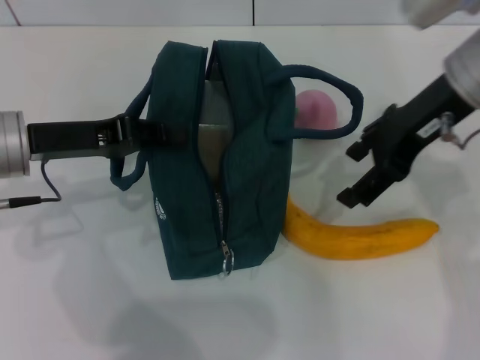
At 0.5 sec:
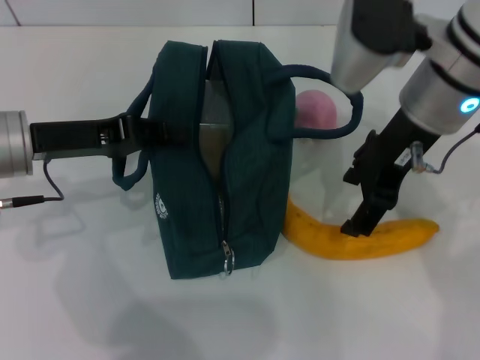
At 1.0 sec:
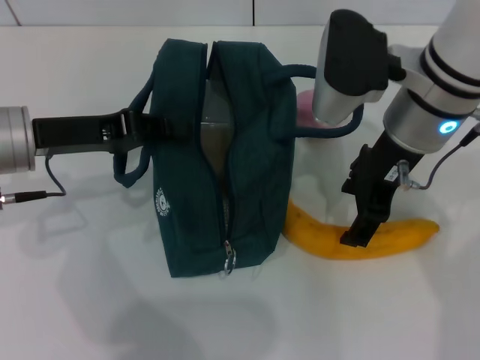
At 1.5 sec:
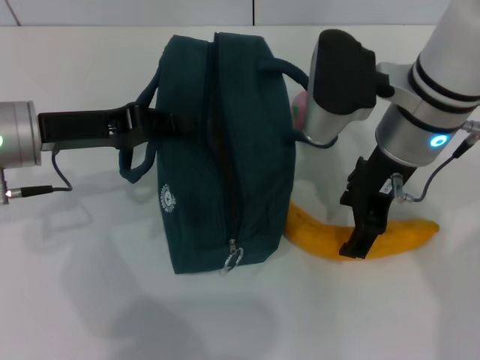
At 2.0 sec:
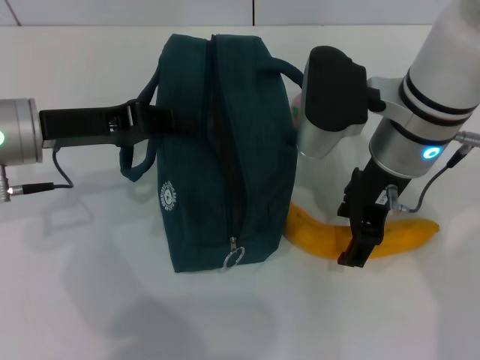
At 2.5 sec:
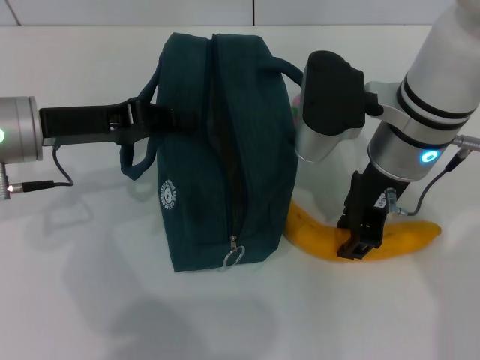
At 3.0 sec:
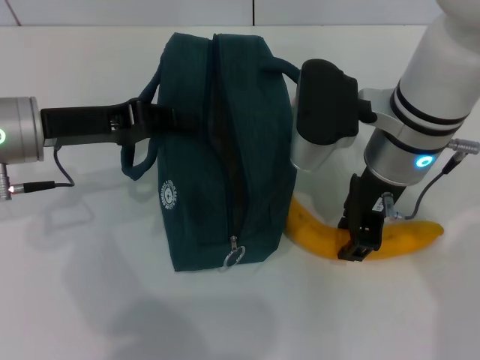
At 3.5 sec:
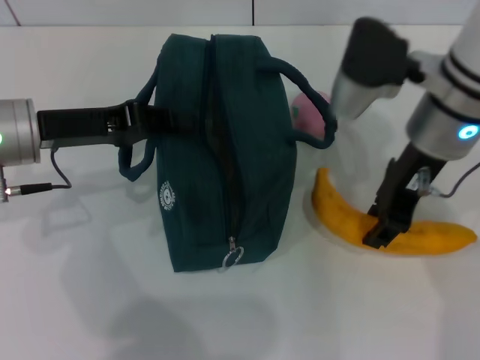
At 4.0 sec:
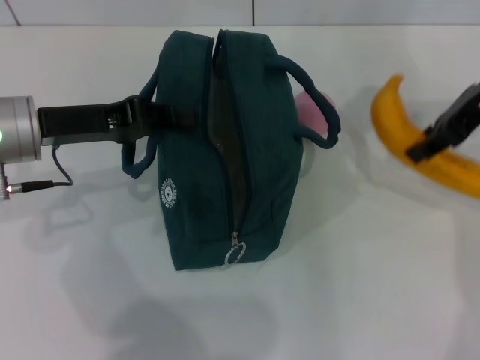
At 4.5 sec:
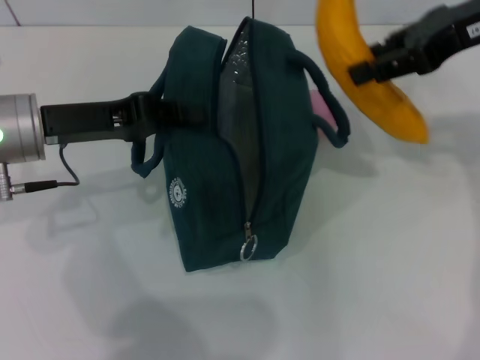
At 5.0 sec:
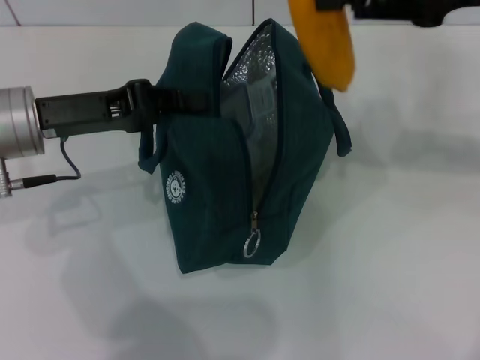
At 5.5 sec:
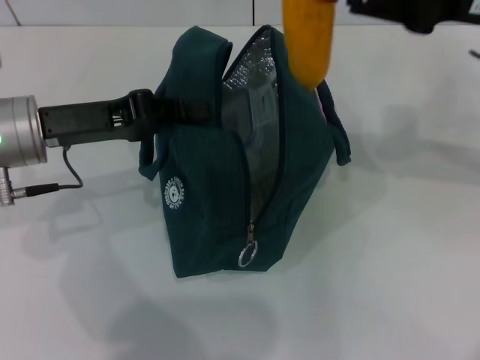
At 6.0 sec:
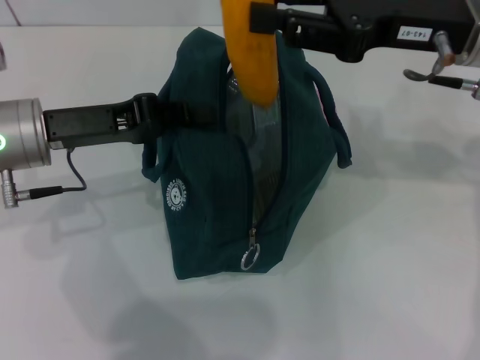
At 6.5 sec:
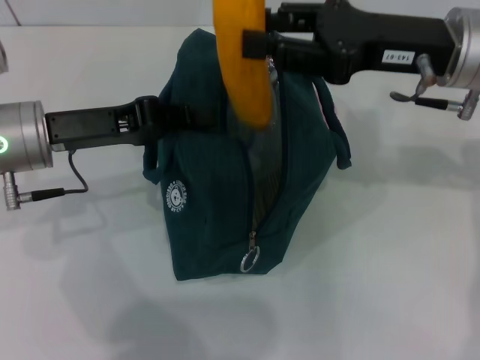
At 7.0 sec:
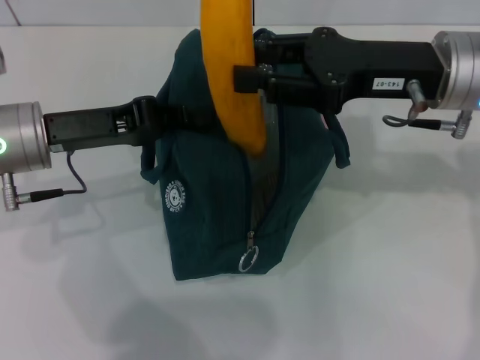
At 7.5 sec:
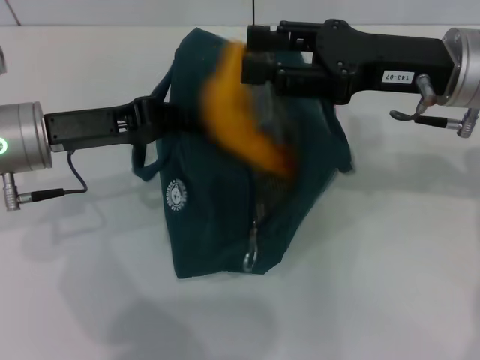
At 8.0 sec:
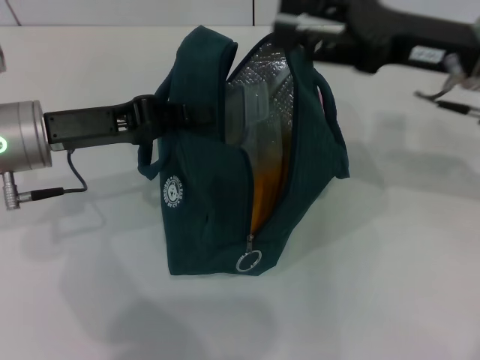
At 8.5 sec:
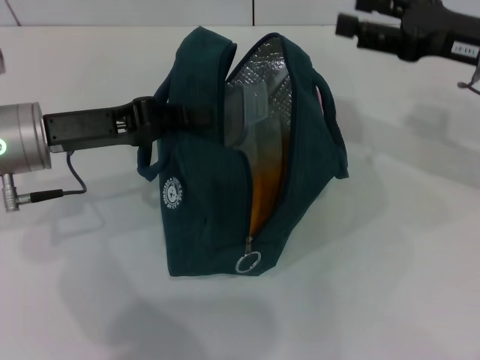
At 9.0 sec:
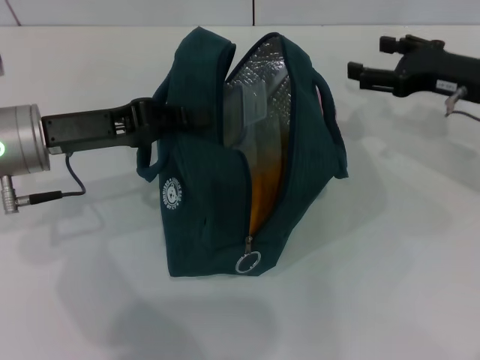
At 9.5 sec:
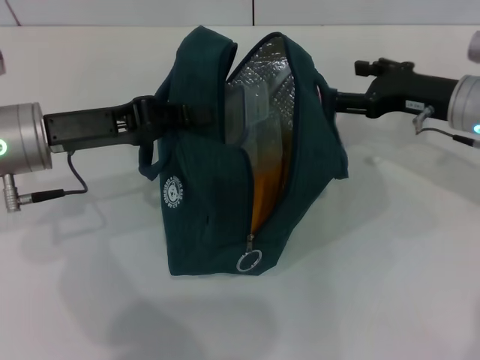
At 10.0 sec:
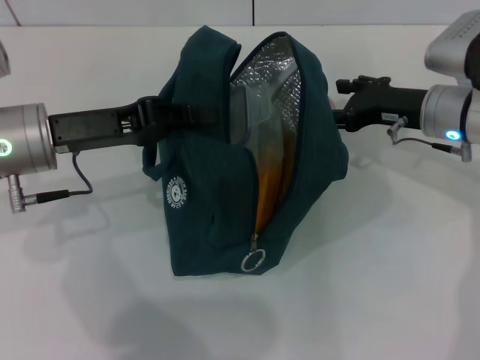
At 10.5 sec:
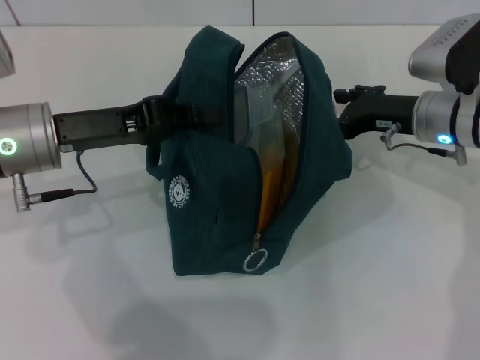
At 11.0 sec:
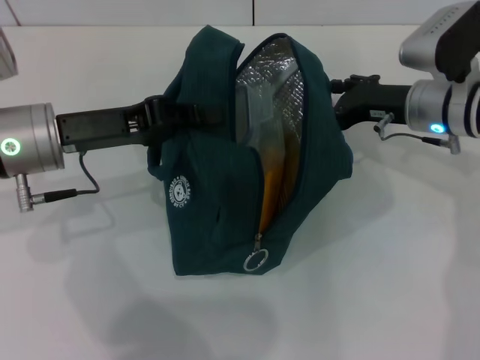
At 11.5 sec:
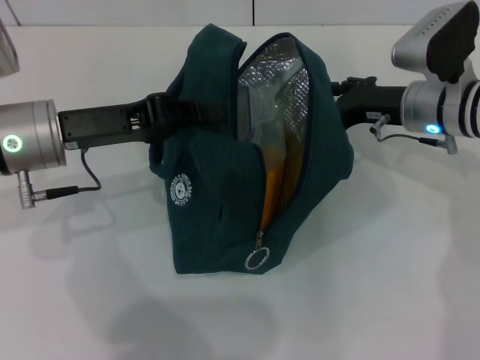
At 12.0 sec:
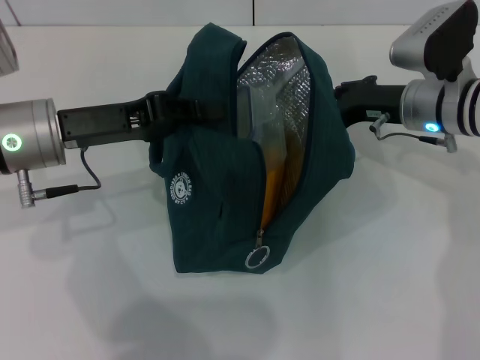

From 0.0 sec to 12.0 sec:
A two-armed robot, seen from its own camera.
Step, from 0.0 sec to 2.5 sec: Take the banana with your right hand.
Step, from 3.0 sec to 7.5 sec: Put the banana into the lunch bag with your right hand.
Step, from 8.0 sec to 12.0 sec: Grab the peach with your right hand.
From 0.0 sec to 2.0 sec: The right gripper shifts roughly 10 cm to the left and downward.
From 2.0 sec to 4.0 sec: The right gripper shifts roughly 15 cm to the right and upward, and closes.
From 4.0 sec to 6.0 sec: The right gripper changes place by about 5 cm.
From 6.0 sec to 8.0 sec: The grippers make only small movements.
From 8.0 sec to 10.0 sec: The right gripper heads downward, covering some 10 cm.
From 10.0 sec to 12.0 sec: The grippers move only a little.

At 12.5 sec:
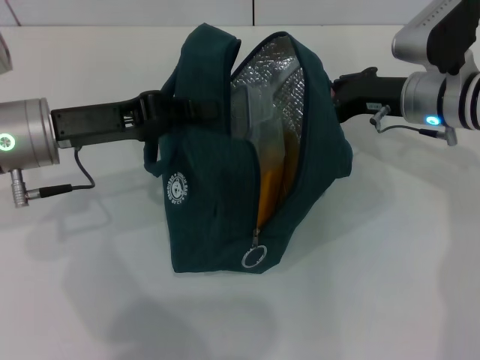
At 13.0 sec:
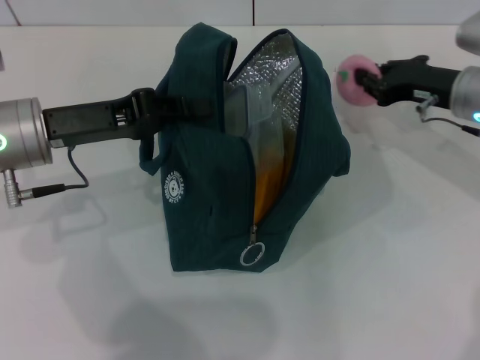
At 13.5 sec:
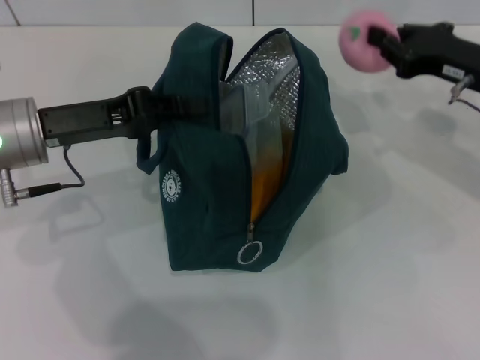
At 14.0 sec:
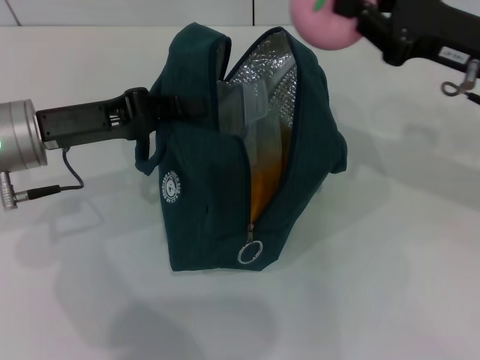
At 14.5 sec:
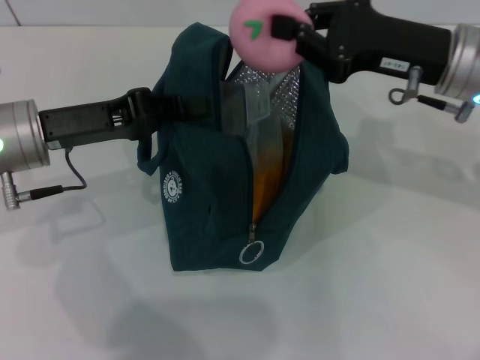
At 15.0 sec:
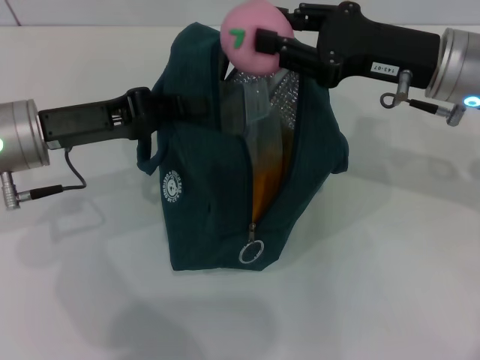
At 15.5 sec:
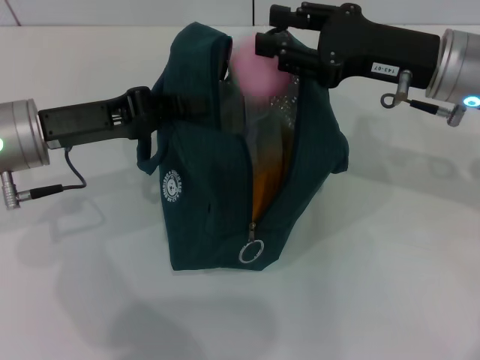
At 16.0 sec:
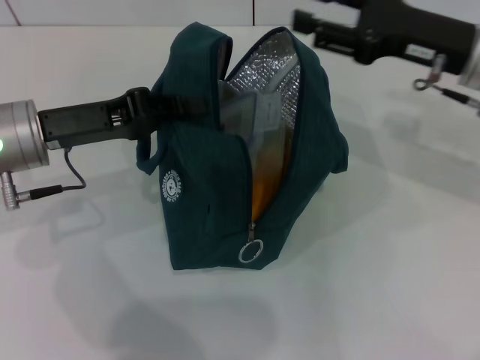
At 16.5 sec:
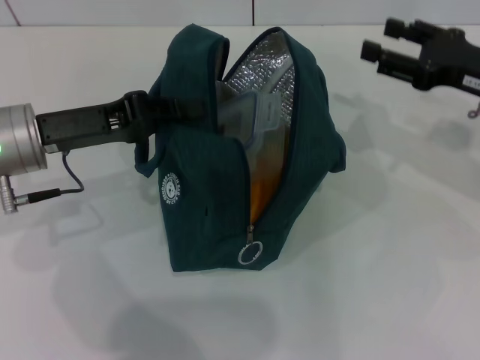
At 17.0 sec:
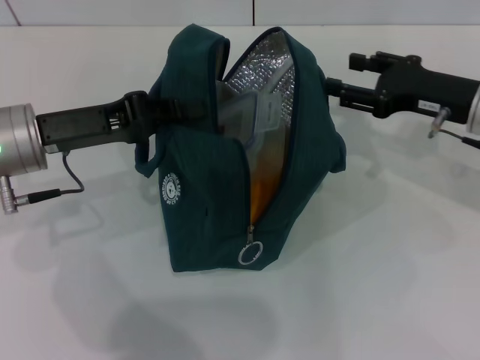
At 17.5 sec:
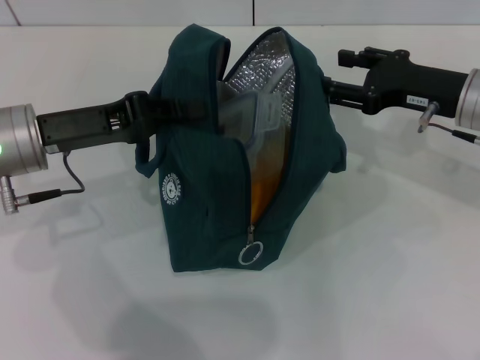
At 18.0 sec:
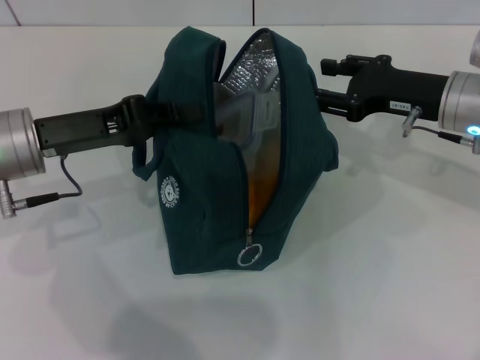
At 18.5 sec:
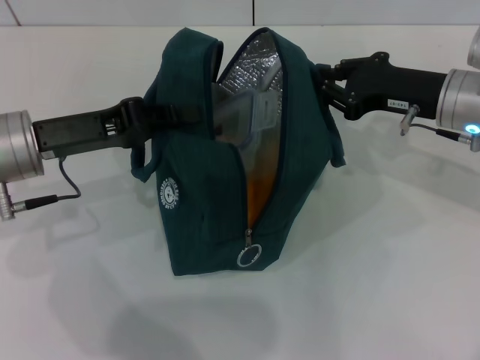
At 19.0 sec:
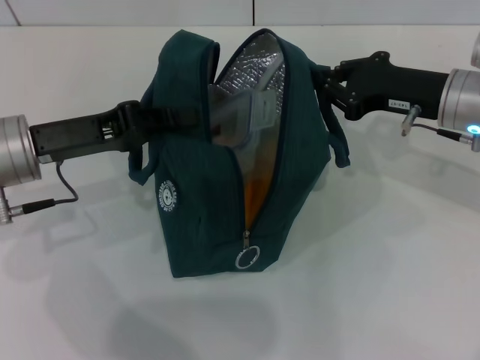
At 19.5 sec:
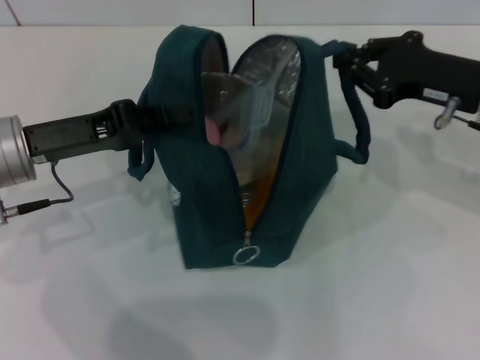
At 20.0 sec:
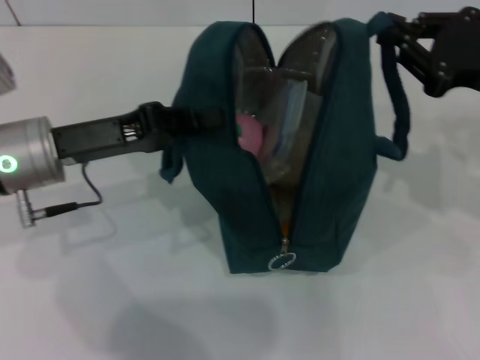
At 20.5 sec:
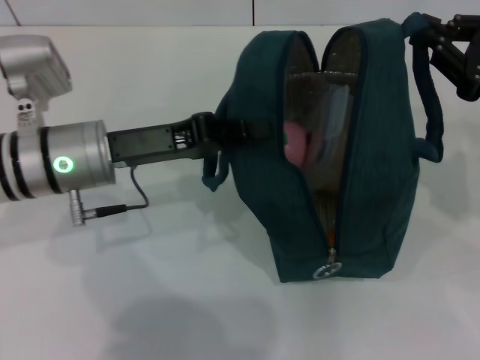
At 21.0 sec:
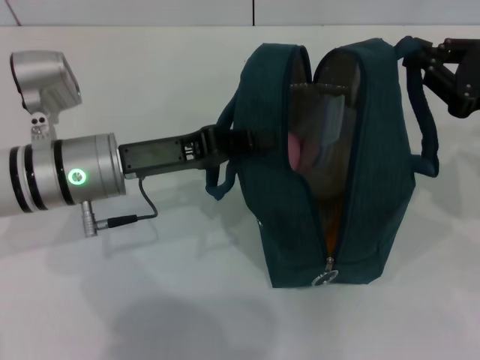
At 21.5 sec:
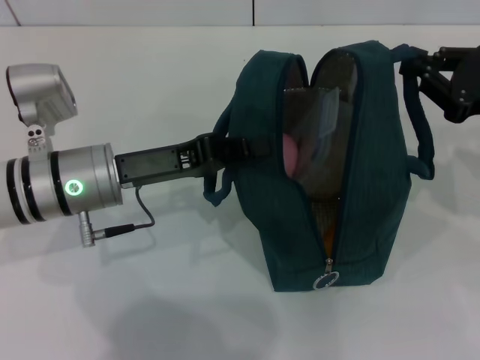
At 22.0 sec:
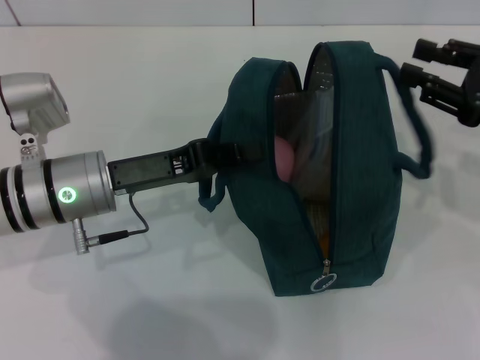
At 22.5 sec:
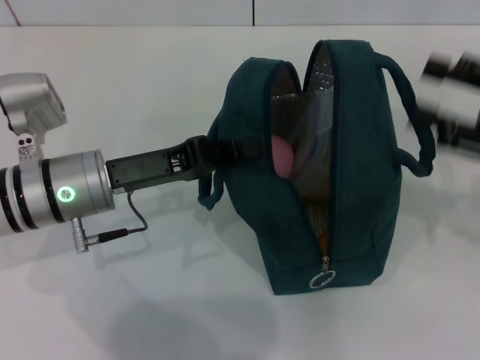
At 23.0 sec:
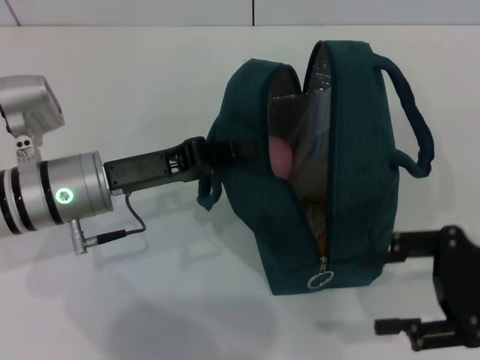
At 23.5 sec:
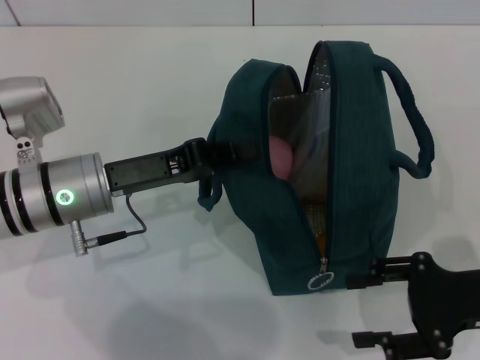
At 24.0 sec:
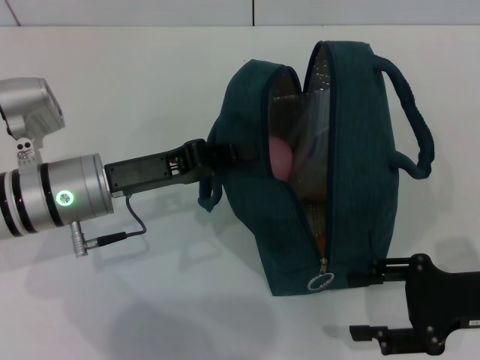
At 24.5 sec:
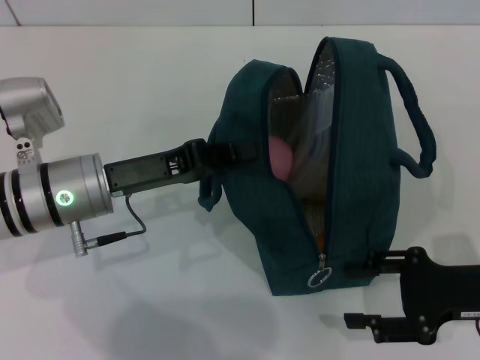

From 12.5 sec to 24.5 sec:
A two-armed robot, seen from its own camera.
Step, from 16.0 sec to 21.5 sec: Hold the lunch bag with your right hand.
From 12.5 sec to 14.5 sec: The right gripper goes approximately 10 cm upward and backward.
From 14.5 sec to 16.5 sec: The right gripper shifts some 10 cm to the right, and opens.
From 16.5 sec to 18.5 sec: The right gripper shifts some 5 cm to the left.
From 18.5 sec to 20.5 sec: The left gripper shifts about 5 cm to the right; the right gripper shifts approximately 10 cm to the right and backward.
From 20.5 sec to 22.5 sec: The right gripper opens its fingers.
From 22.5 sec to 24.5 sec: The right gripper shifts some 10 cm downward.

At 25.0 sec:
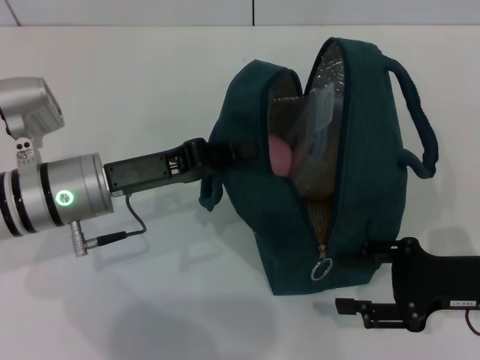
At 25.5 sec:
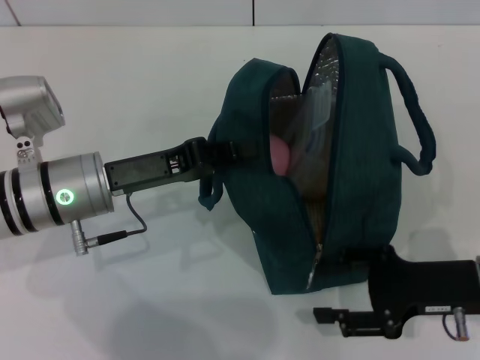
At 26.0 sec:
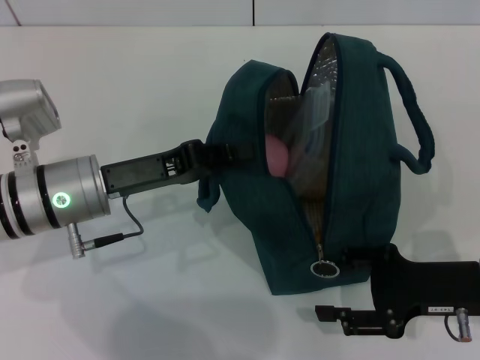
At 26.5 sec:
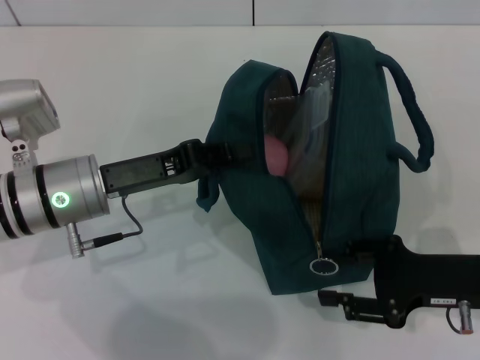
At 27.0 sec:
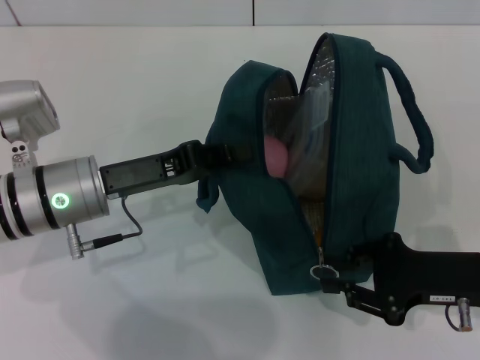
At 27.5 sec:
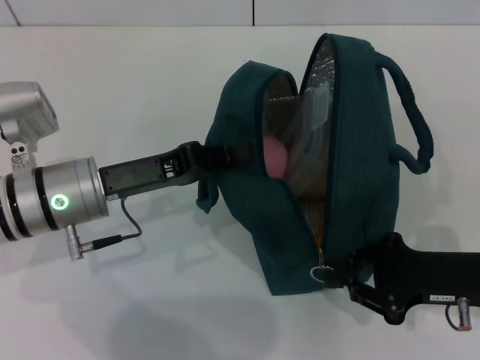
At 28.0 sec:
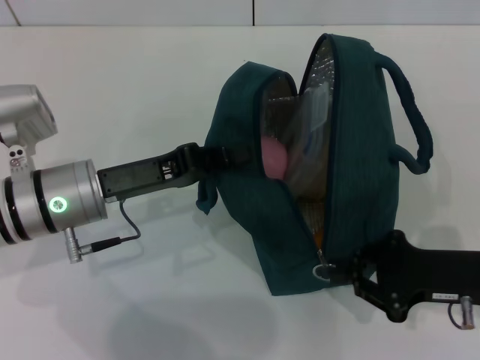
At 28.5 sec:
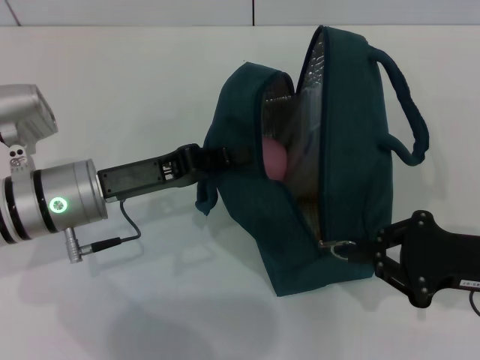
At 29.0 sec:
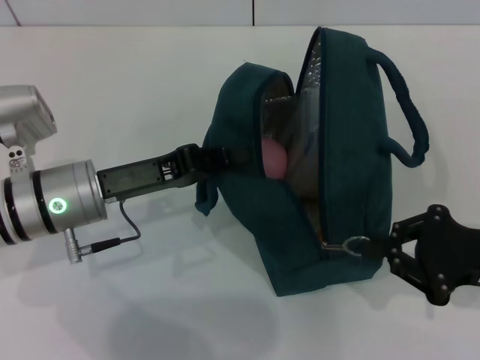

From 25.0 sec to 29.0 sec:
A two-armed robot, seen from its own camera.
From 25.0 sec to 27.0 sec: The right gripper closes.
From 27.0 sec to 29.0 sec: The grippers stay close to where they were, moving slightly.
